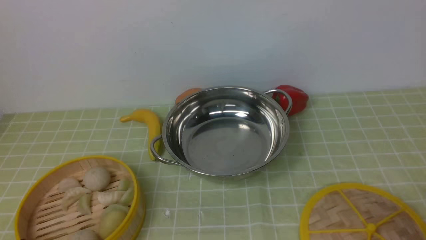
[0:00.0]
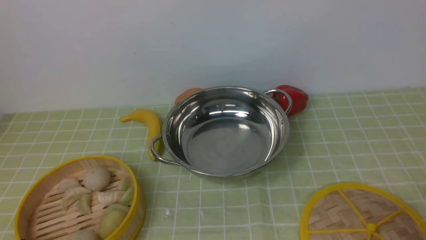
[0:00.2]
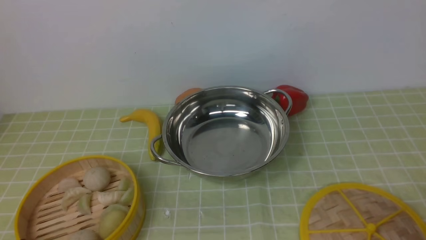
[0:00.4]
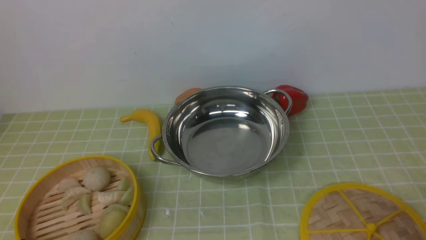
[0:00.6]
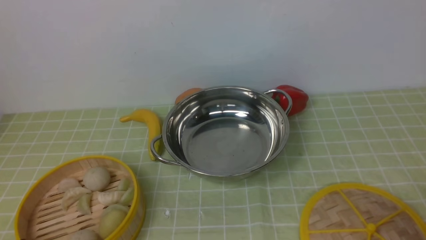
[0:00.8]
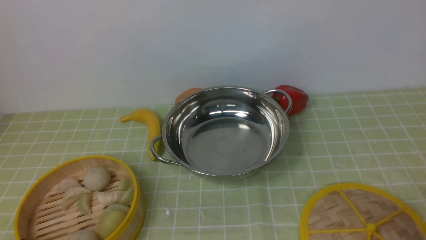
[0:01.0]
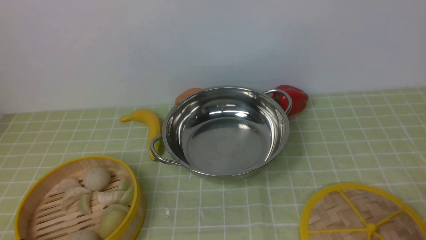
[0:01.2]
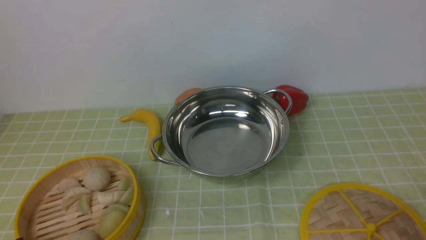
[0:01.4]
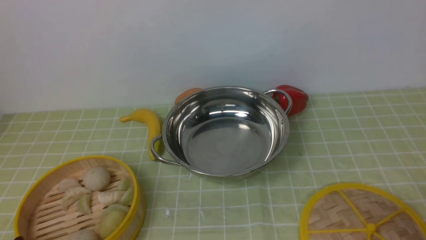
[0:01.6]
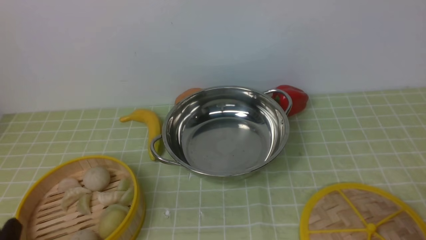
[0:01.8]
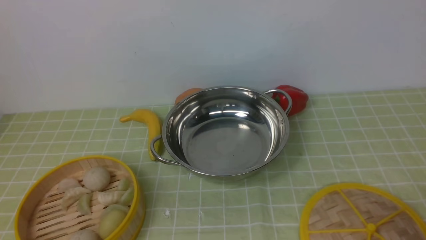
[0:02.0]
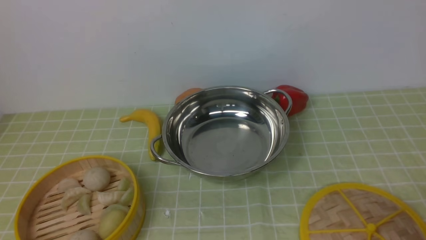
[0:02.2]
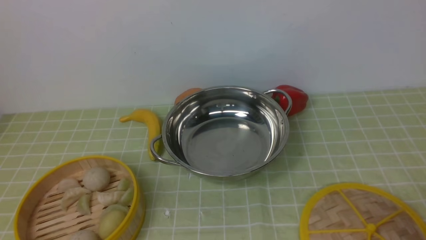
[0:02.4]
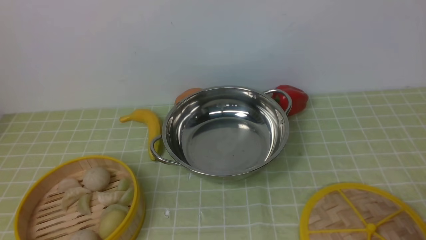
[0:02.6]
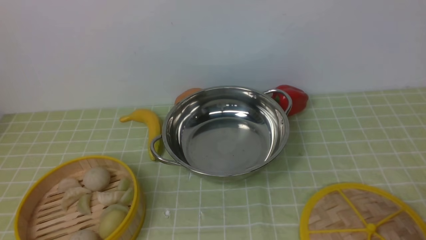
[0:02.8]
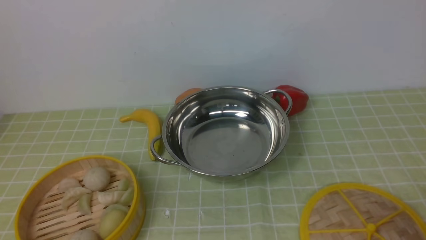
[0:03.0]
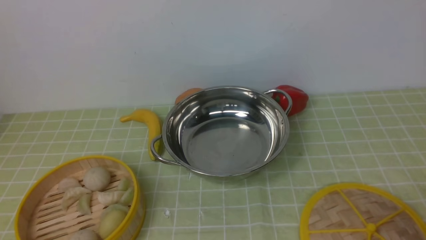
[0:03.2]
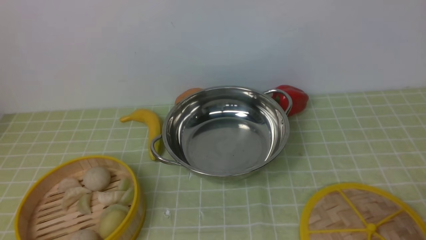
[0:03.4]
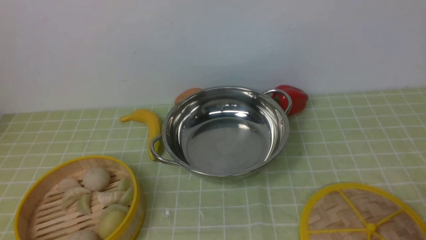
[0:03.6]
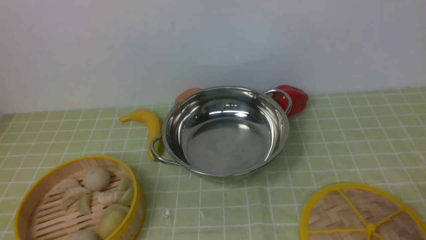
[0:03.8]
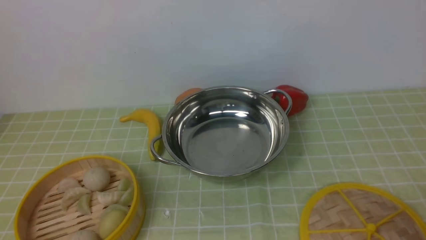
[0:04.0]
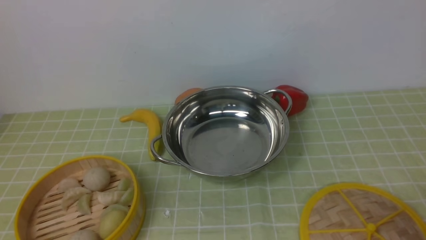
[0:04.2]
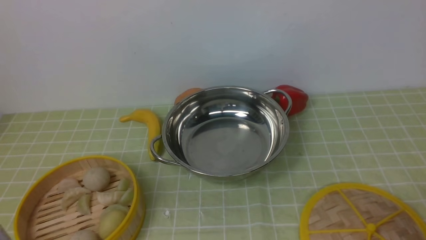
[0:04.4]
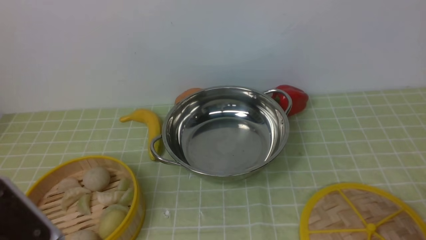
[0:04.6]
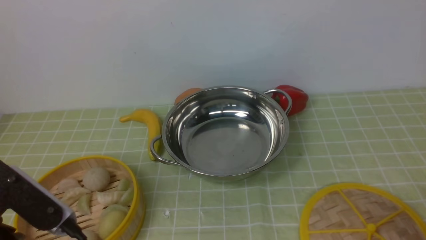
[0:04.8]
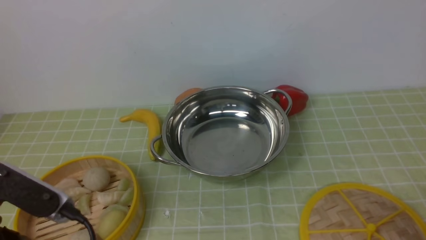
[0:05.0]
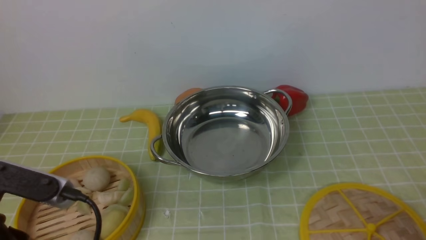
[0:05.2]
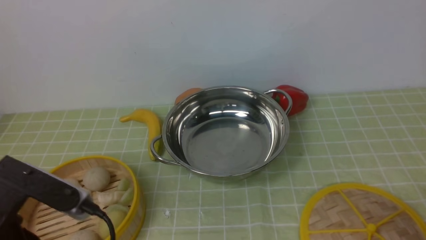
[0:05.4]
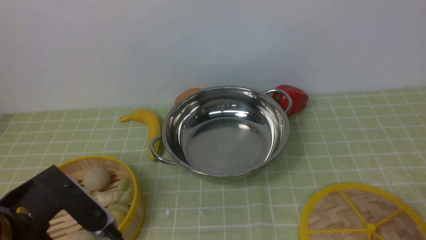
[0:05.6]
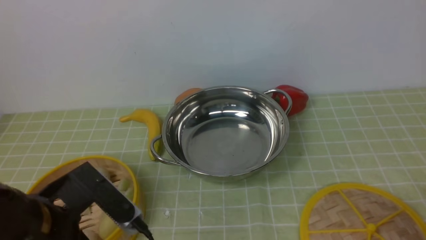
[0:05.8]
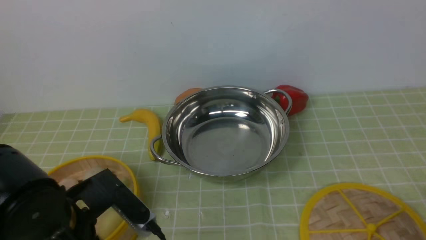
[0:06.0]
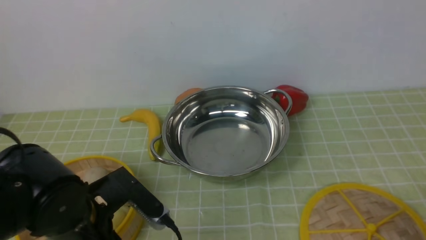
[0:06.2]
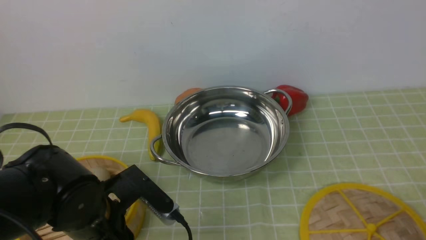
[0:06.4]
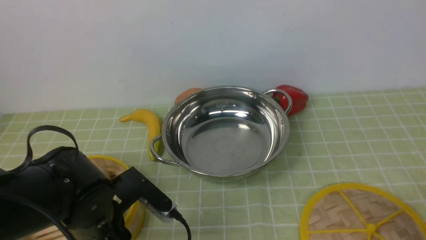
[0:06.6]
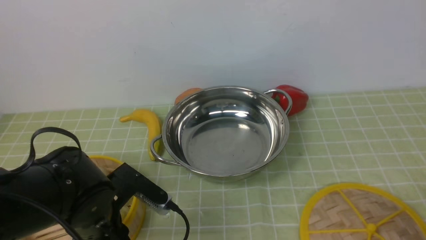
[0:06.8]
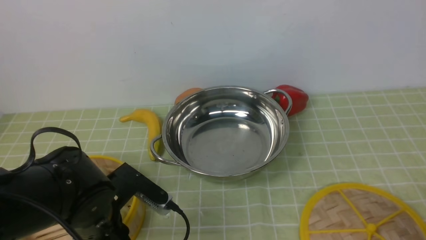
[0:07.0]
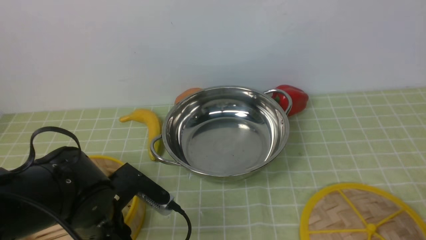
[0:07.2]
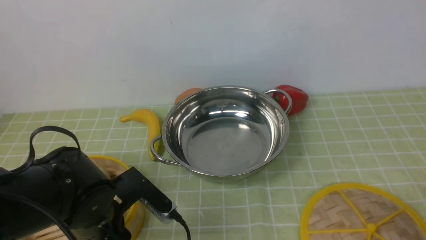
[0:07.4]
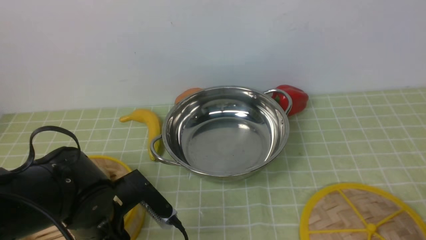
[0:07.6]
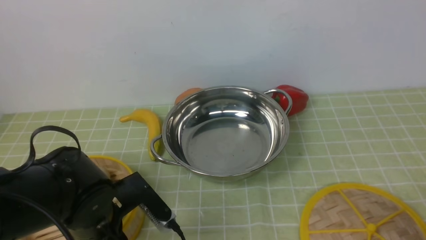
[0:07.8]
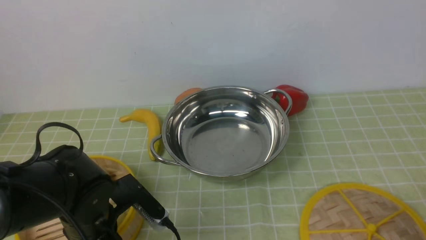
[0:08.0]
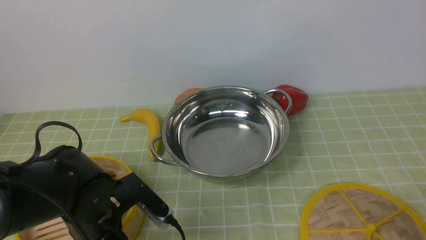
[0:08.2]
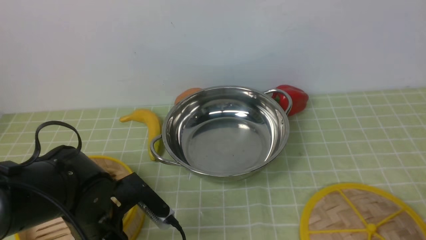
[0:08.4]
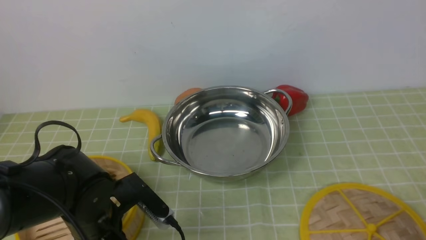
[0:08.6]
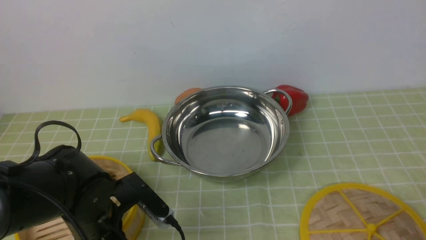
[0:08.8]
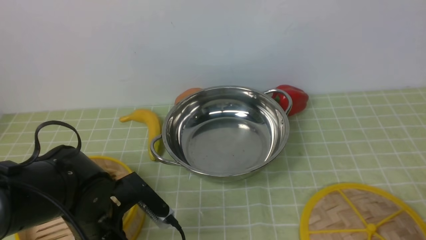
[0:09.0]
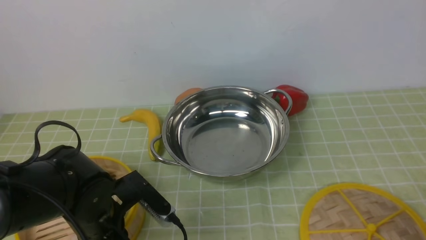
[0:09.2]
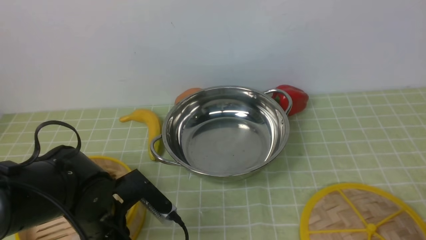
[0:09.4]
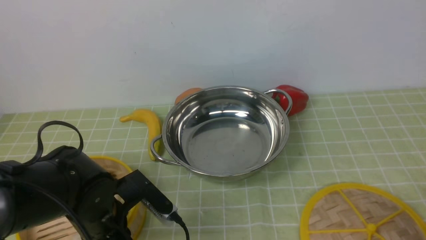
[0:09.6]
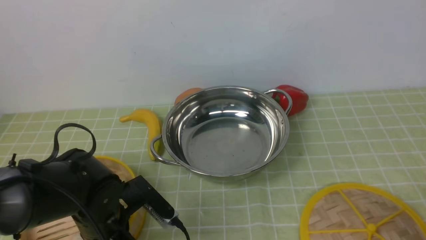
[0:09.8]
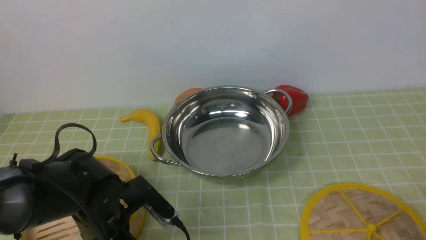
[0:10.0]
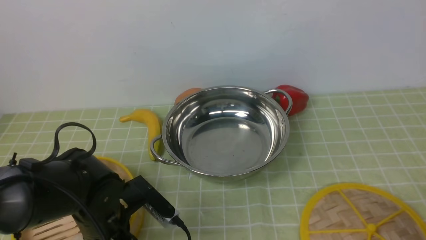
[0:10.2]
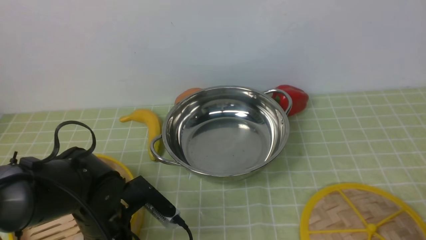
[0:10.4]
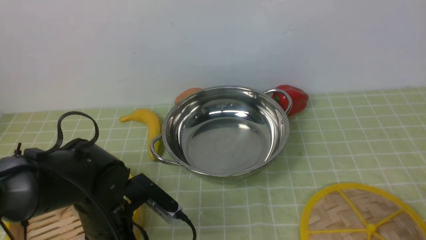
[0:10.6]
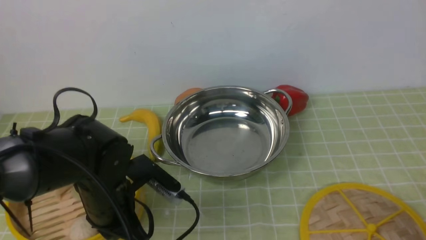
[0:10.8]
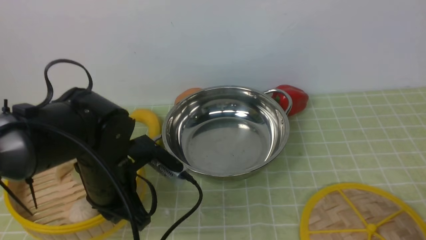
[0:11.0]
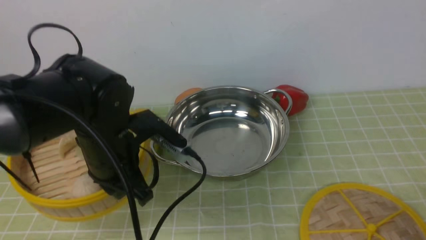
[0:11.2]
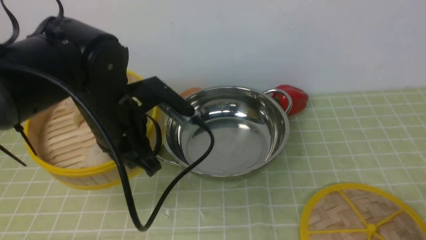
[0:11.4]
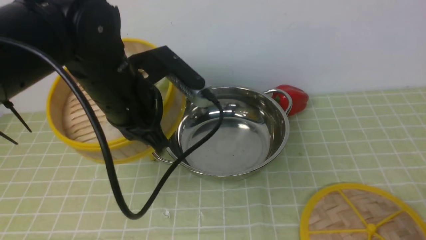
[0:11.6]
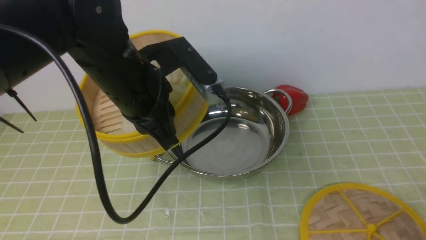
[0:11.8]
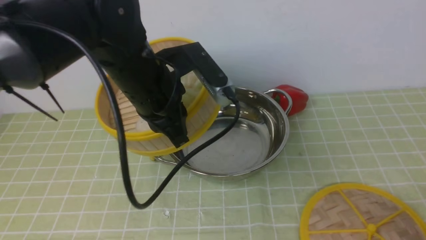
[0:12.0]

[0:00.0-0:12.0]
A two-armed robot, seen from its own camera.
Task of the whole recording: place the steamer in the pot on the green tablecloth, and put the lid on the steamer.
Step, 0:00.0 to 0:11.2: use the left arm to lift the steamer closest to it.
0:00.0 to 0:01.6: Both grippers stay about where they are.
0:04.4 to 0:06.0: The left gripper goes some 15 cm forward, downward and to the right, and opens its fingers.
0:06.0 to 0:07.6: The left gripper heads downward, covering about 5 cm.
0:07.6 to 0:09.0: The left gripper closes its fingers.
0:09.0 to 0:10.4: The left gripper closes.
0:10.4 to 0:12.0: The left gripper heads upward, forward and to the right, covering some 20 cm.

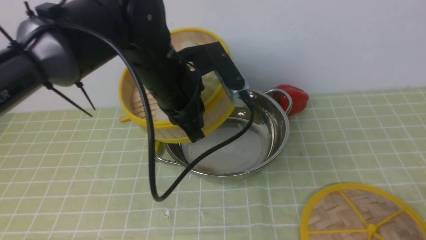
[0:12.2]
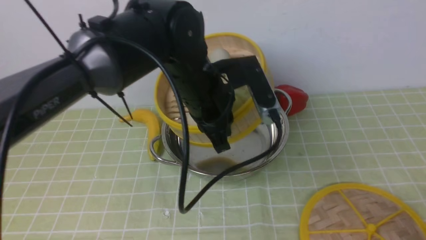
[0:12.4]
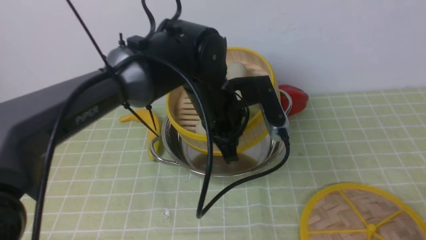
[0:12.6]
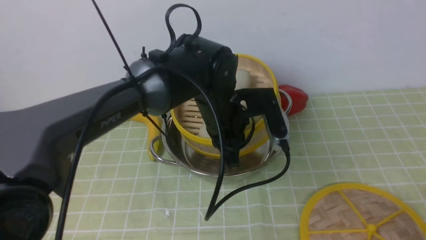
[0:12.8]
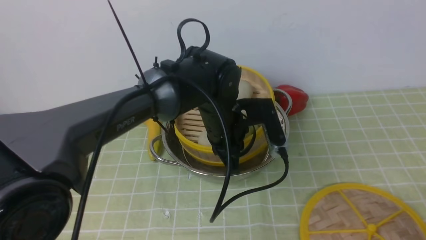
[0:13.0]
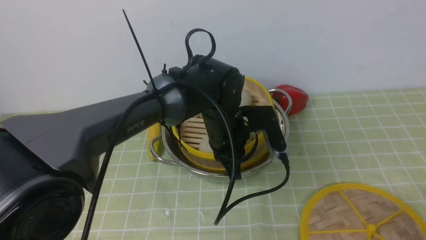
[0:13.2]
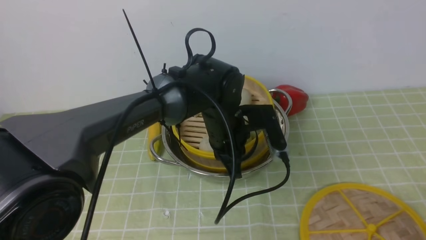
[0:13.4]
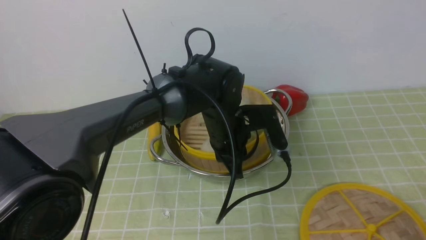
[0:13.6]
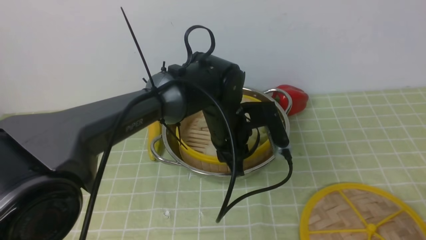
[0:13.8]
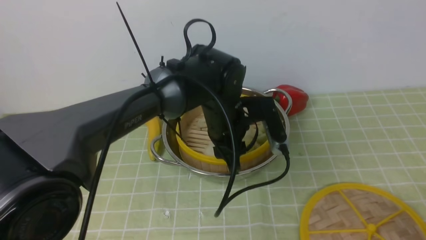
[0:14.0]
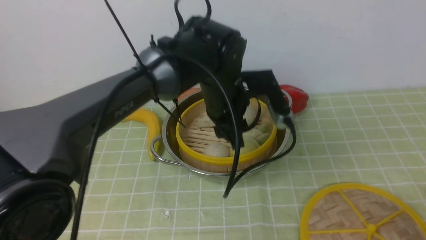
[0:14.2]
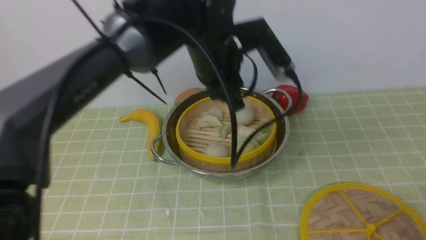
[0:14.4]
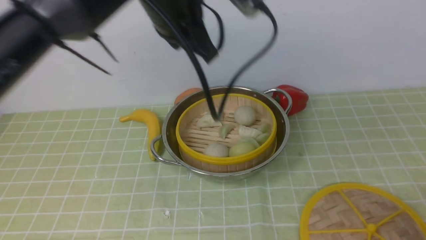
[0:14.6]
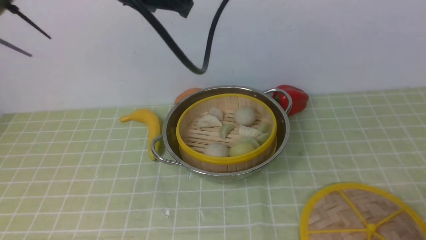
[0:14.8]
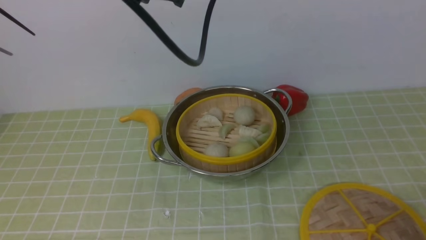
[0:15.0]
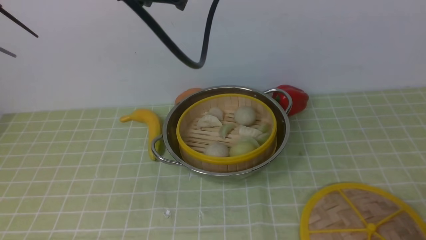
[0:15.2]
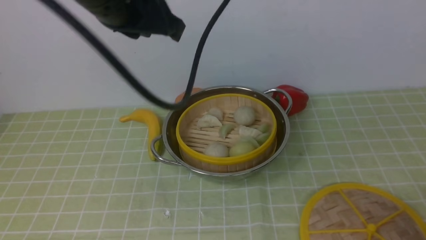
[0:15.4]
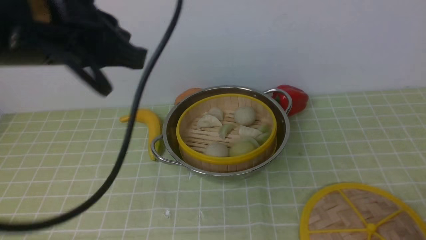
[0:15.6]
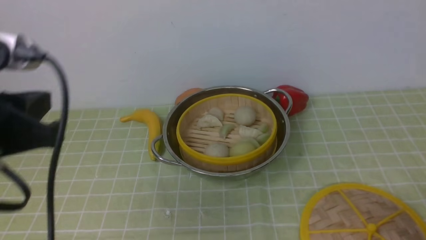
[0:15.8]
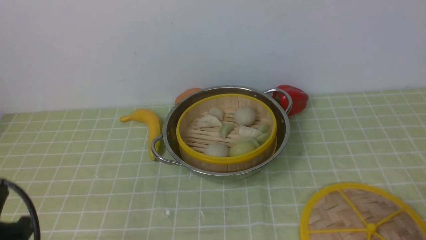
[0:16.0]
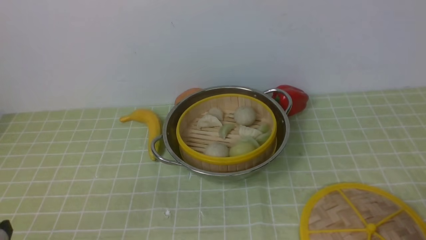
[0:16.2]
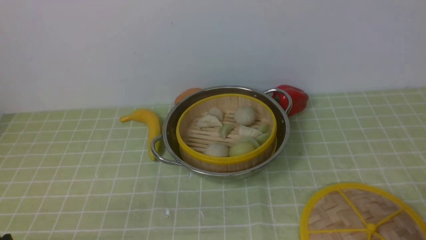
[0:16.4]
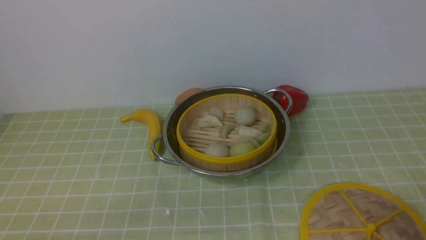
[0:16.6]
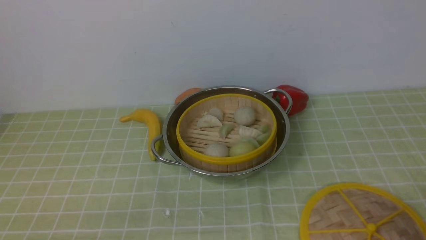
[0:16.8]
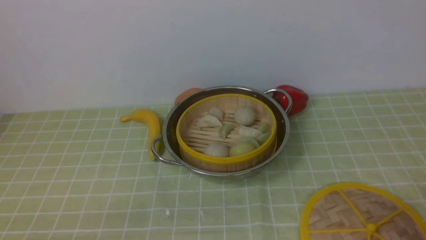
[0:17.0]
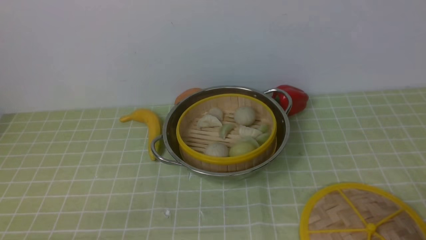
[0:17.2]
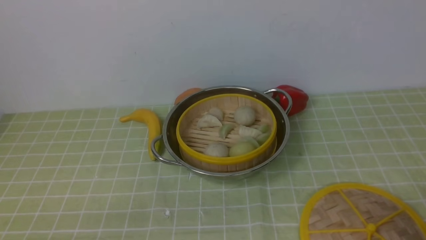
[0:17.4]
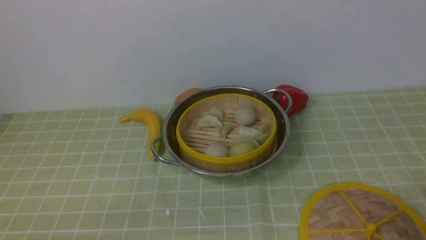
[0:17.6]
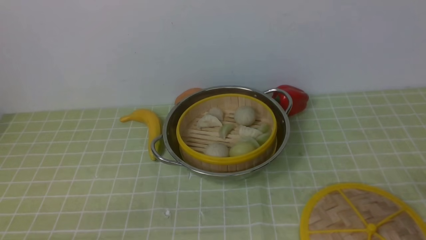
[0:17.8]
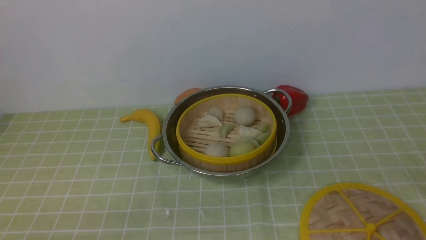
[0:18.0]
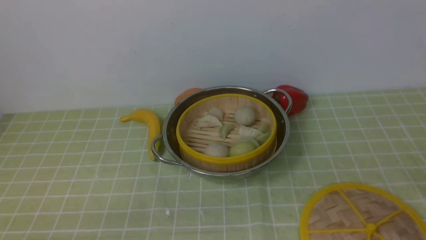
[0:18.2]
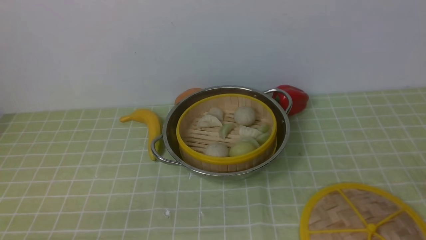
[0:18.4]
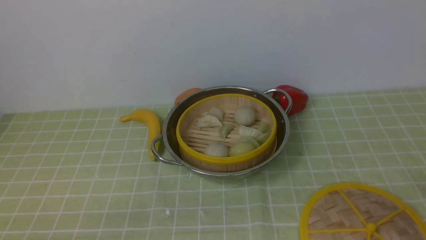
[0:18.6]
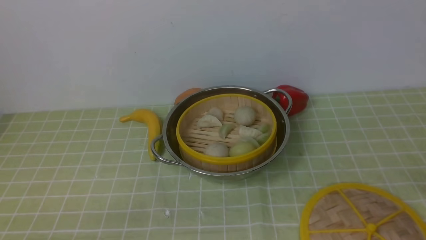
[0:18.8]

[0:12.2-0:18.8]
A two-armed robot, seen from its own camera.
Task of the whole recording: place the steamer in the pot on the green tablecloth, and put the lid on the steamer.
Step, 0:12.2 to 0:14.4: use the left arm to put the steamer into the iron steamer pot in the middle.
0:12.2 to 0:13.8: The left gripper shifts approximately 10 cm downward and to the right, and opens up.
0:13.8 to 0:15.4: The left gripper heads upward and to the left, covering roughly 25 cm, and closes up.
0:15.4 to 0:17.2: The left gripper is displaced downward, backward and to the left by some 40 cm.
